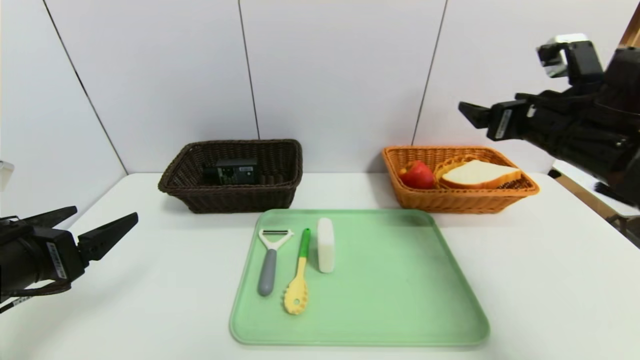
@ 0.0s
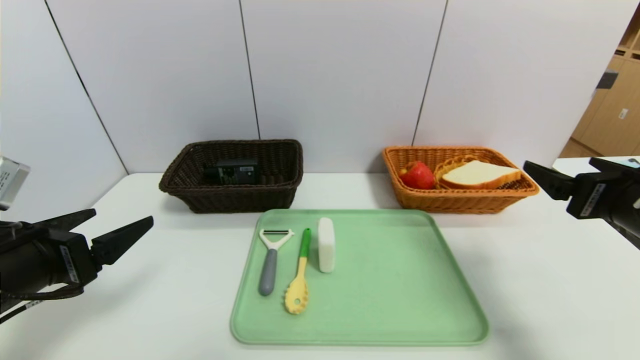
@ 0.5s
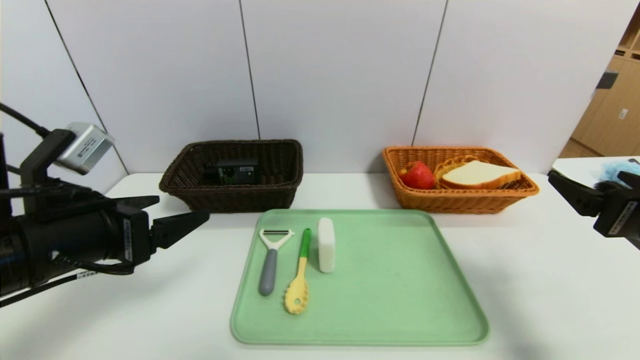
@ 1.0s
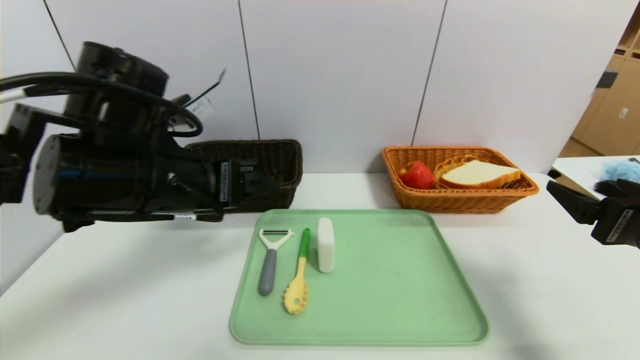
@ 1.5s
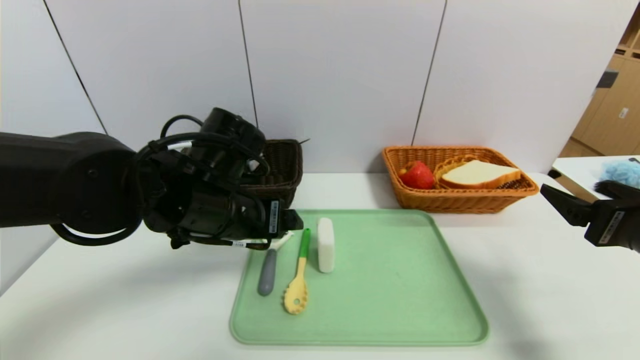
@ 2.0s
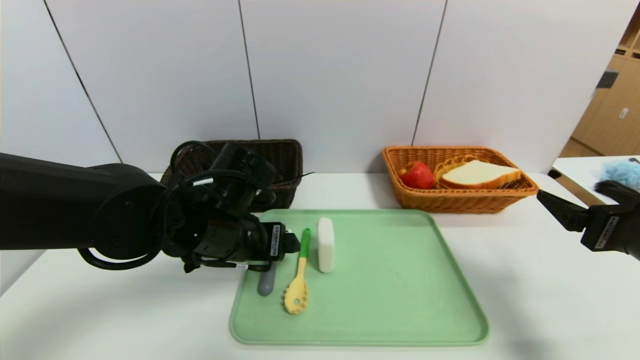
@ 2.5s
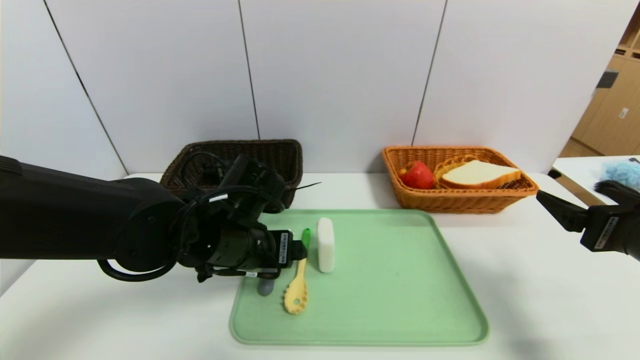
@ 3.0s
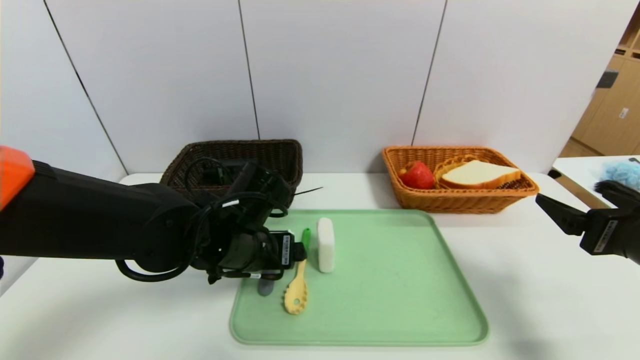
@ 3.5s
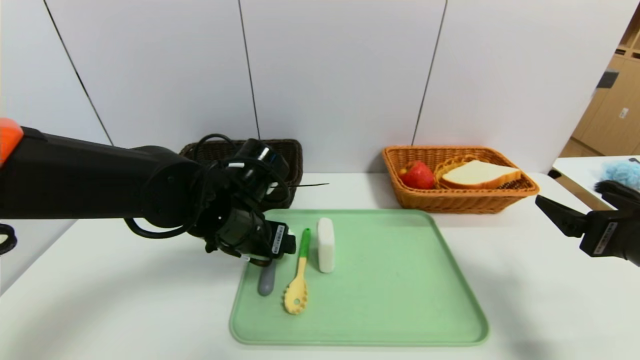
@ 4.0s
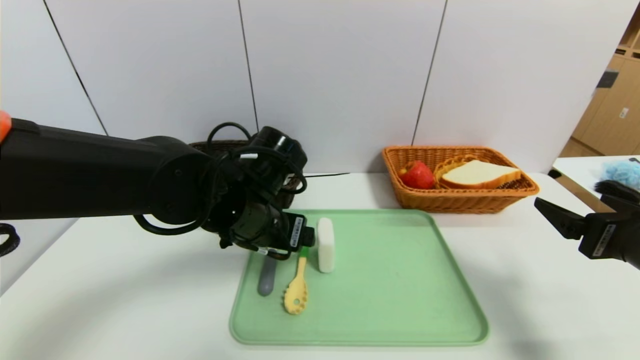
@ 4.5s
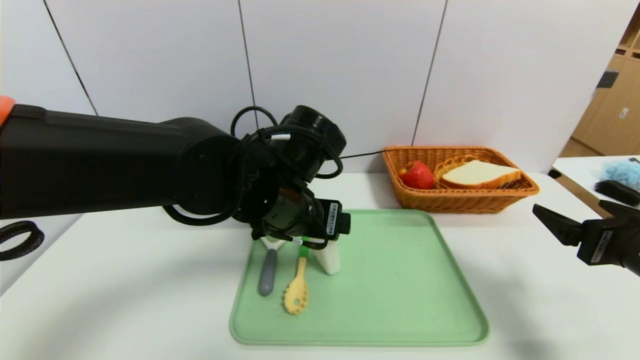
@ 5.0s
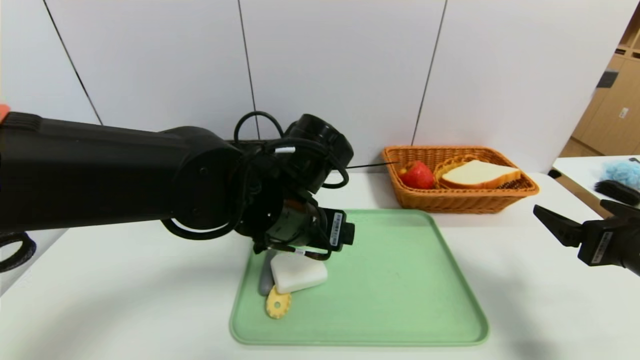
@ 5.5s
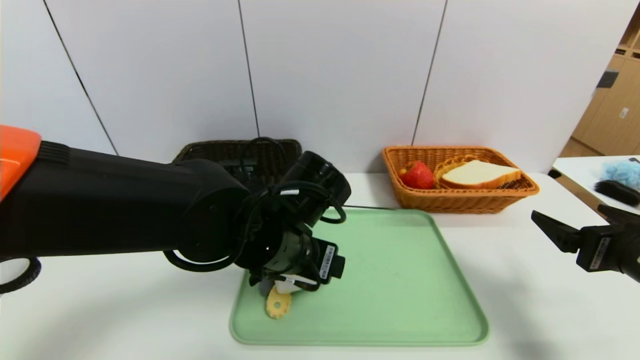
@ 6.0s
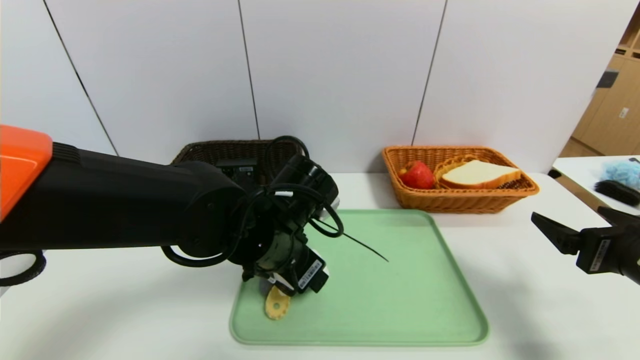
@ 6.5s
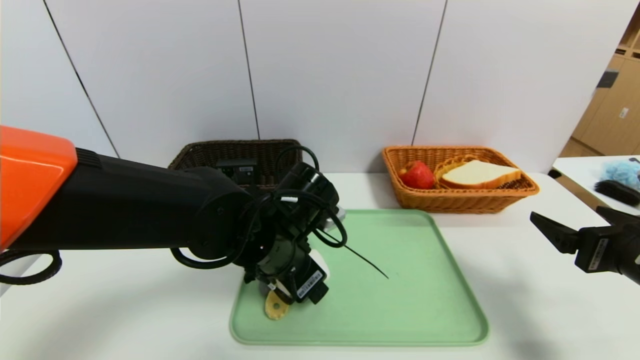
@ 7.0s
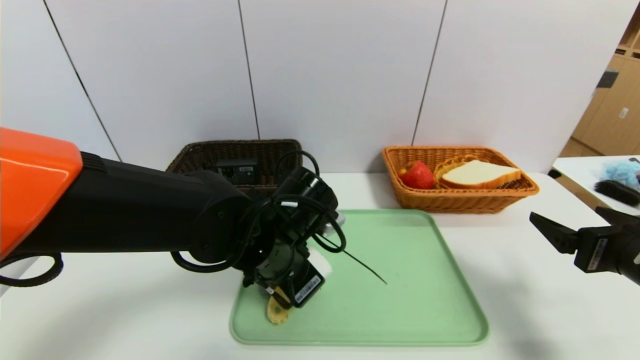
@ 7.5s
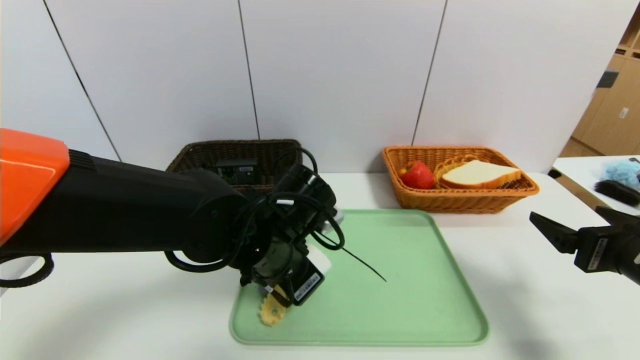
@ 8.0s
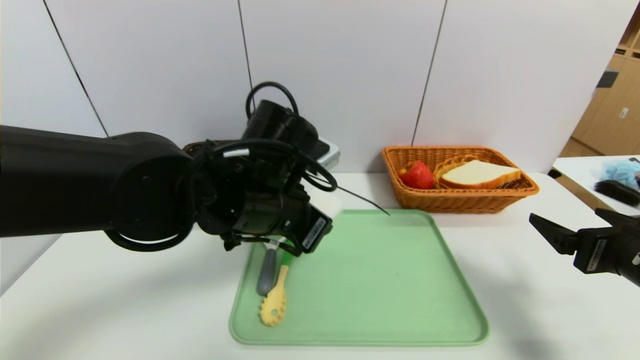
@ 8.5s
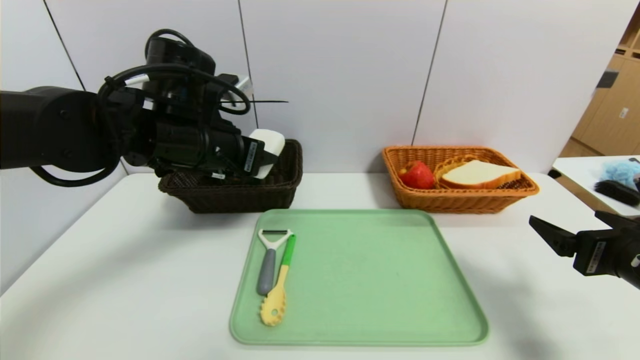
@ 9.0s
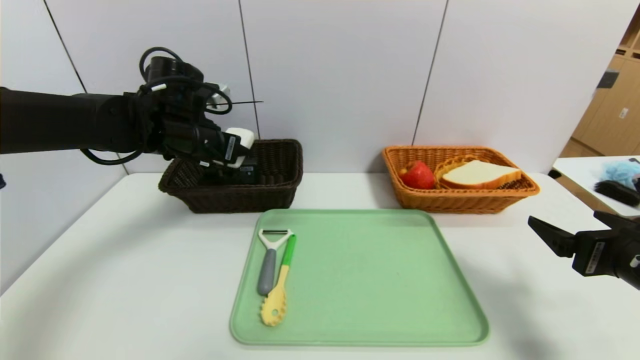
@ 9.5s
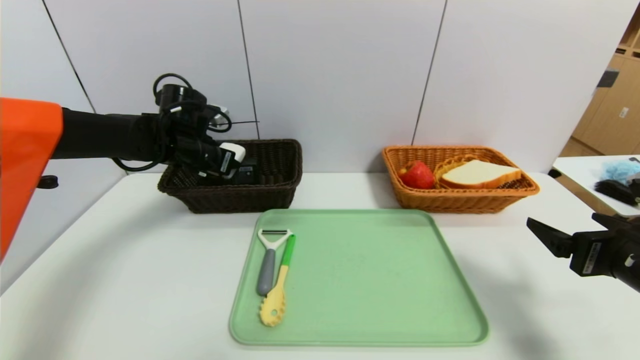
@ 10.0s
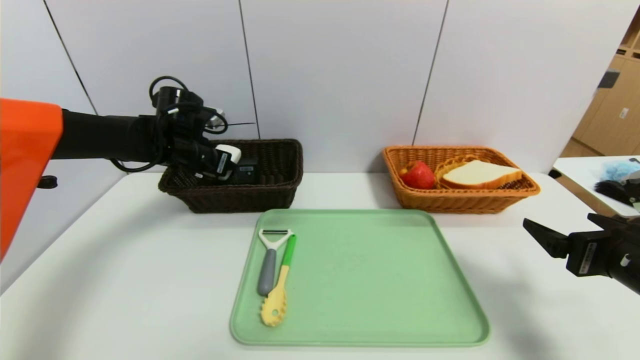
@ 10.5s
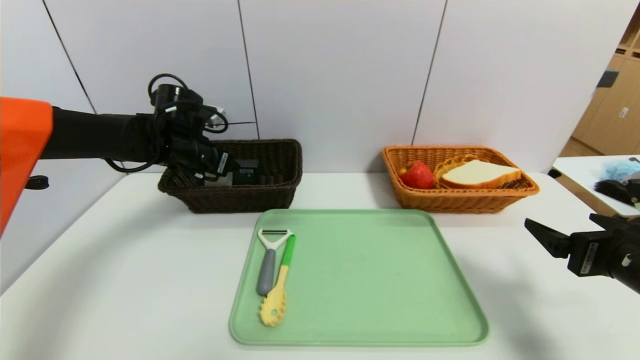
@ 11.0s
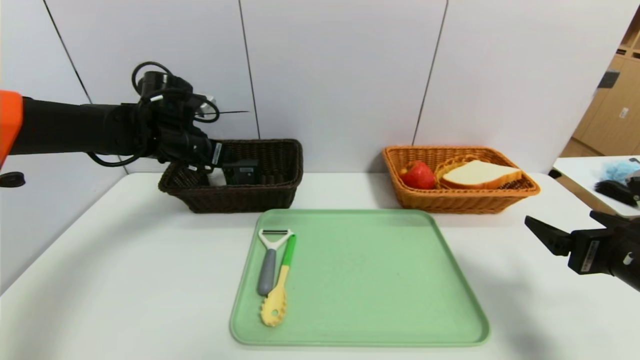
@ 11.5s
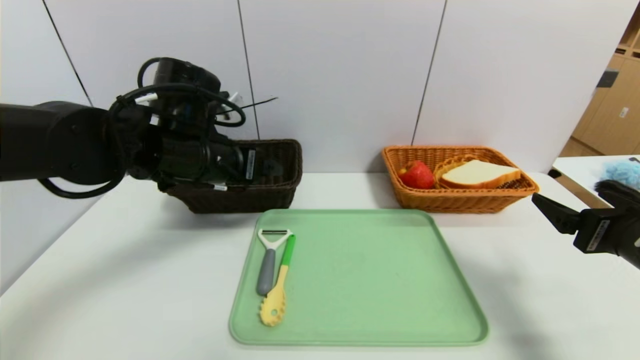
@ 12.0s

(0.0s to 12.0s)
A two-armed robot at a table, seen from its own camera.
Task of the whole recording: place the food in the right basket with the right gripper, and place the non food items in the left basket with the left gripper.
Step, 0.0s - 11.0s: Grasp the soap and put it in the left basket.
0.0s - 2.0s: The right gripper travels backward and downward by approximately 15 cm. Meanwhile the left gripper shifts some 20 cm to the right and forward.
4.0s - 6.0s: The left gripper travels to the right by about 5 cm.
6.0s - 8.0s: The left gripper closes its fingers.
8.0s - 10.0s: The left gripper heads forward and to the left, covering some 25 cm.
10.0s - 12.0s: The left gripper travels backward and to the right by some 15 cm, and opens.

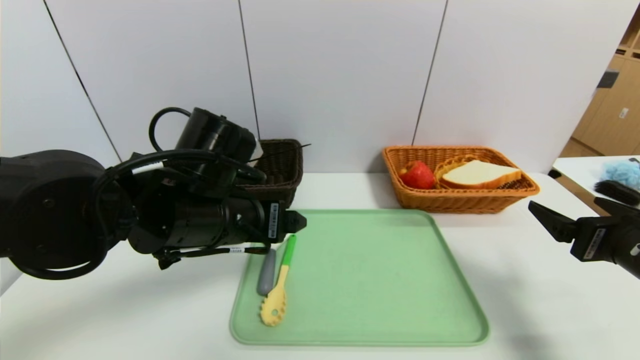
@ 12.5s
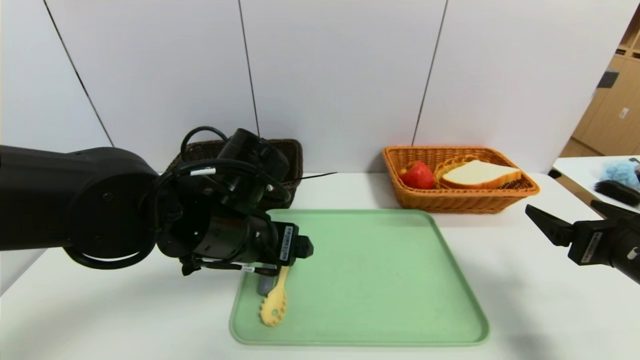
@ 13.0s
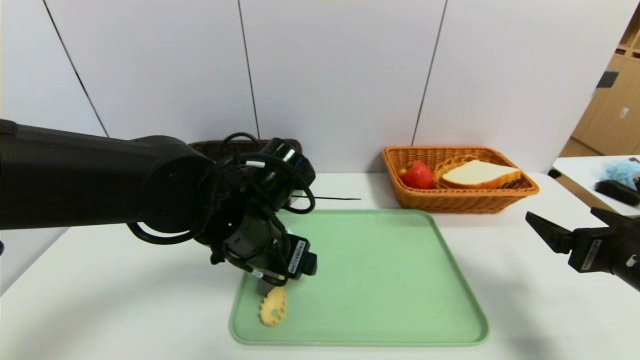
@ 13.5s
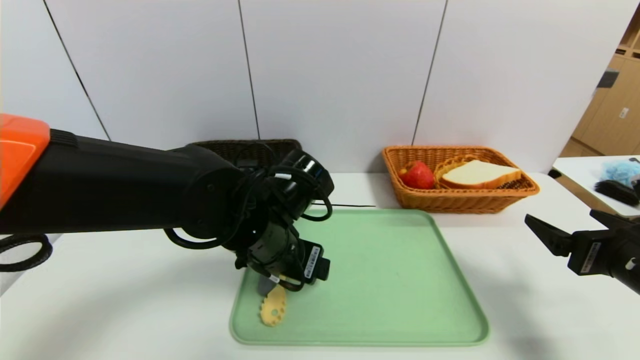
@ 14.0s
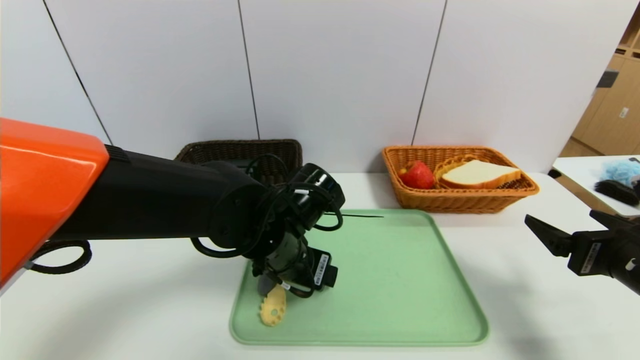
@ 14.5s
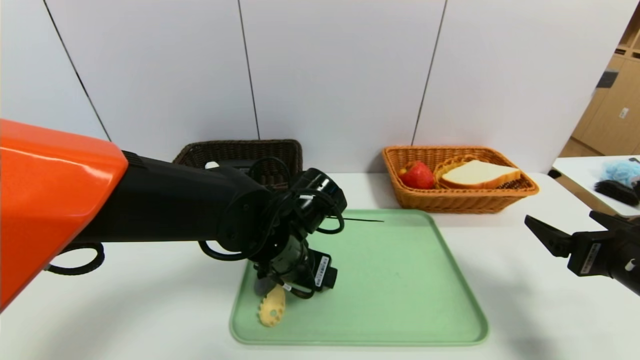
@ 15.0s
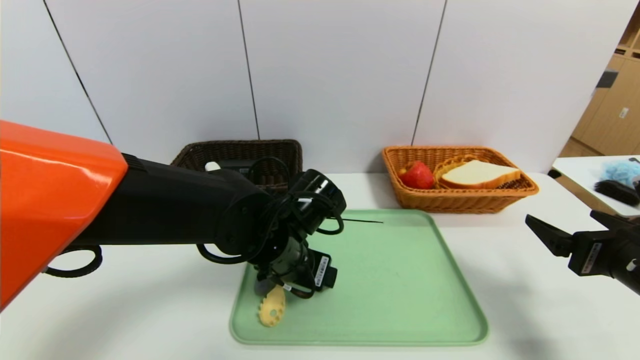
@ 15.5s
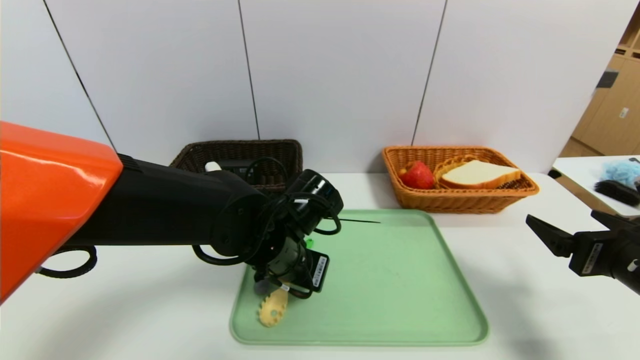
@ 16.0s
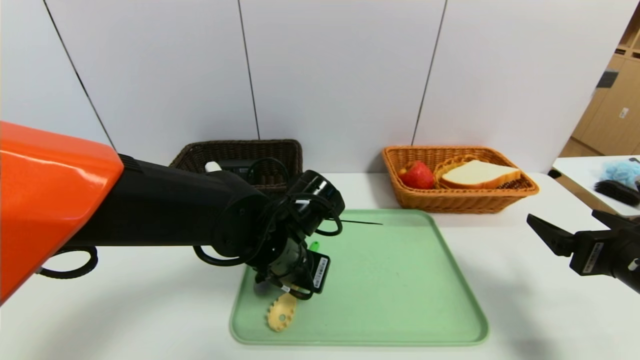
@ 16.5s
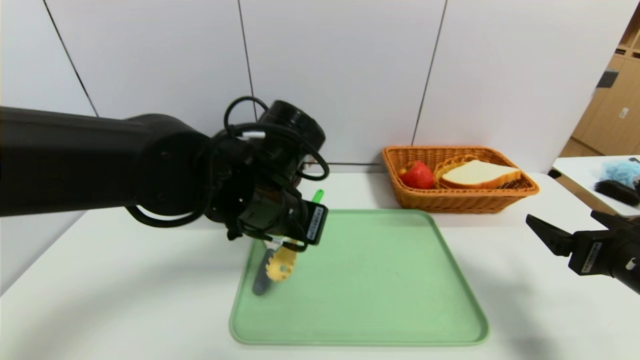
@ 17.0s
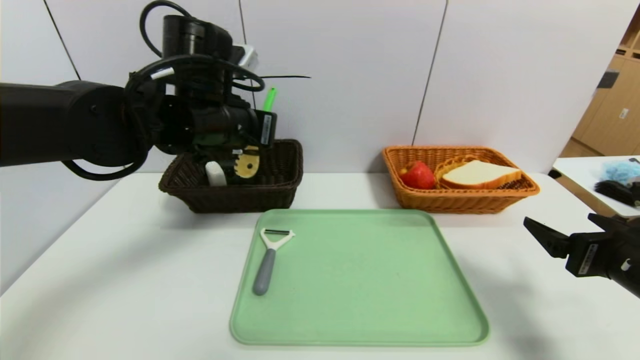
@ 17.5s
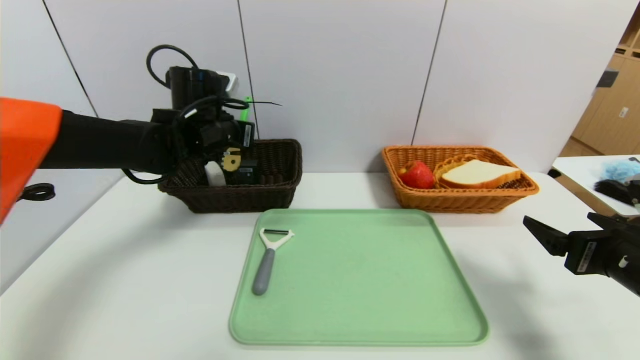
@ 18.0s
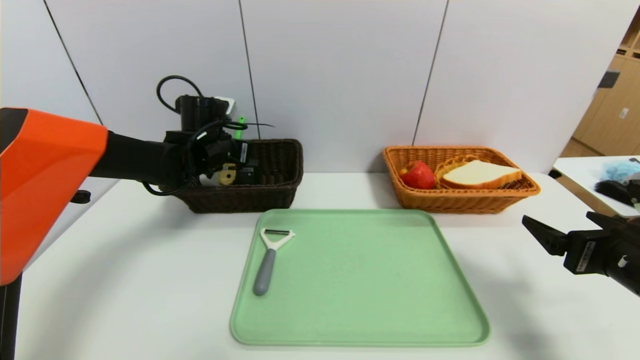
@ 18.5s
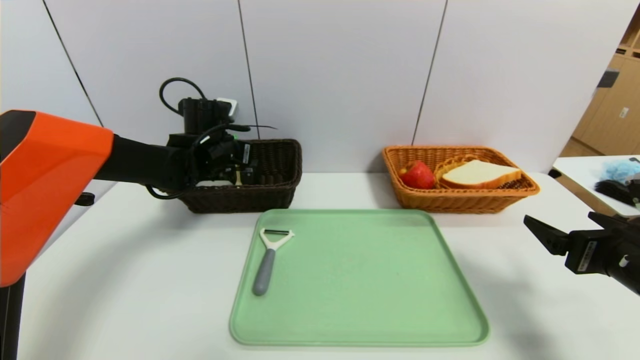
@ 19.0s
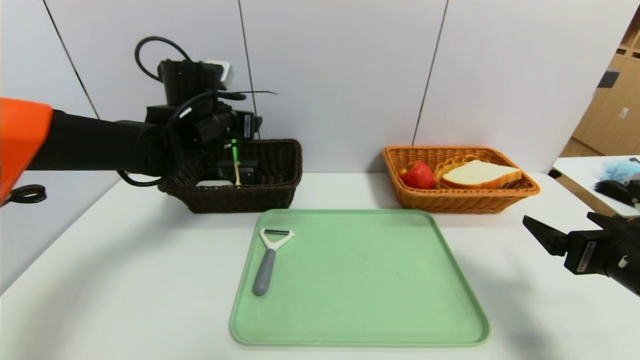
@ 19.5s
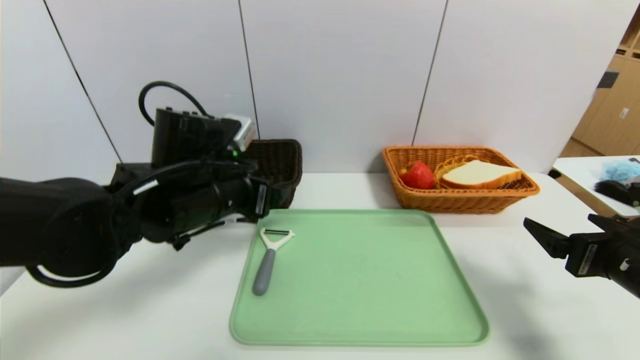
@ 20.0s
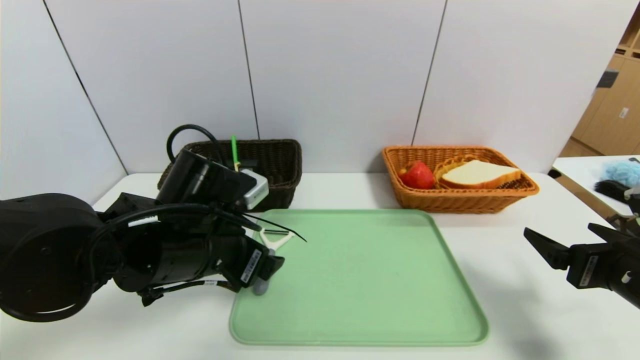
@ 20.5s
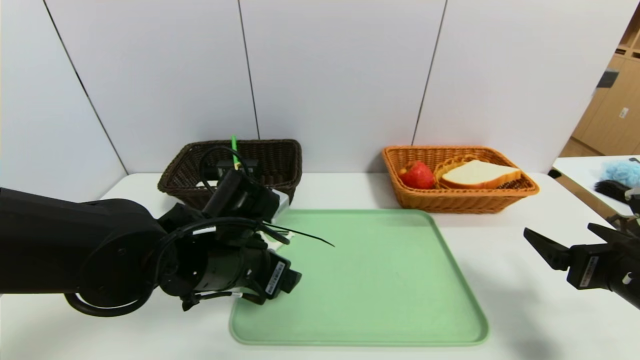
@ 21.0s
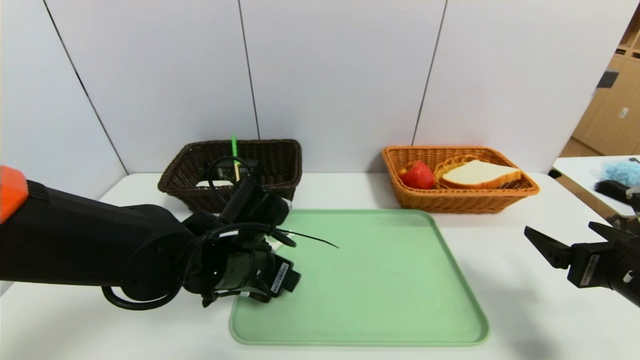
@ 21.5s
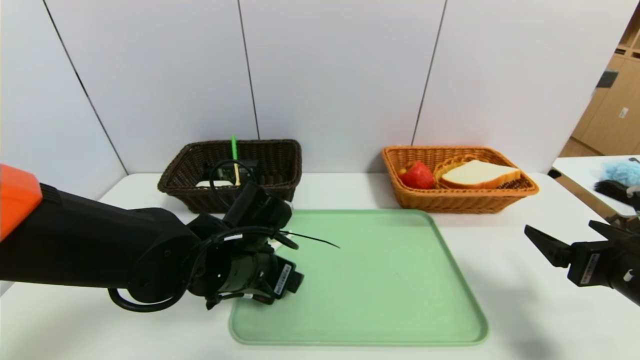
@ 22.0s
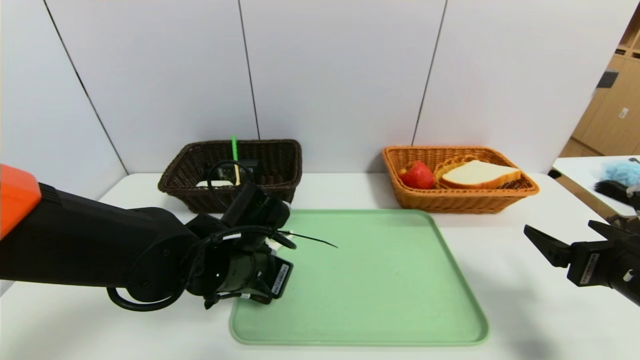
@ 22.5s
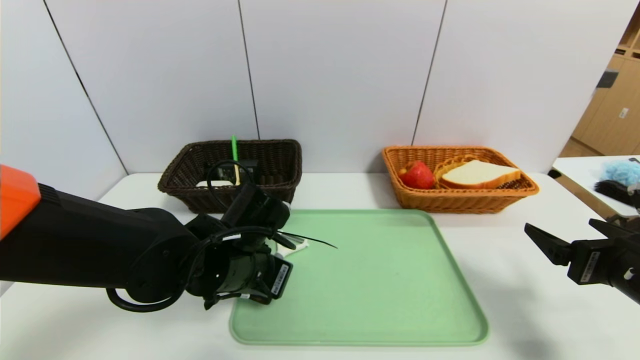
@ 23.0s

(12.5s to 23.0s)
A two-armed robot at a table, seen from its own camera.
Task of the whole recording: place the food in the right basket with the right gripper, and place the non food items in the left basket with the left gripper.
Step, 12.5s - 19.5s: Grasp the brush and put it in the left basket.
12.5s - 14.5s: The left gripper travels to the right and downward by some 10 cm.
14.5s - 16.5s: The left gripper closes up.
16.5s - 19.0s: The left gripper is displaced forward and to the left by approximately 25 cm, and opens up.
19.0s - 21.0s: The left gripper moves backward and to the right, about 20 cm, and opens up.
21.0s - 23.0s: The left gripper closes.
